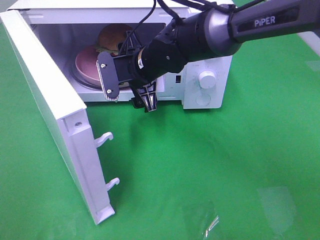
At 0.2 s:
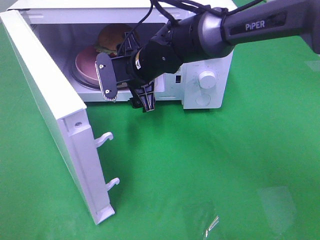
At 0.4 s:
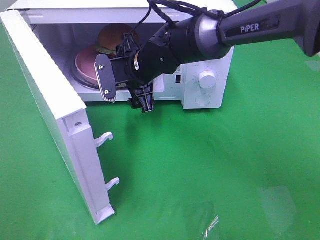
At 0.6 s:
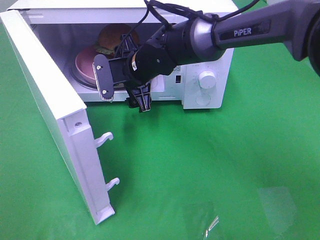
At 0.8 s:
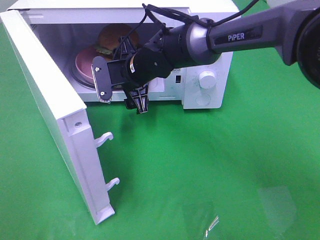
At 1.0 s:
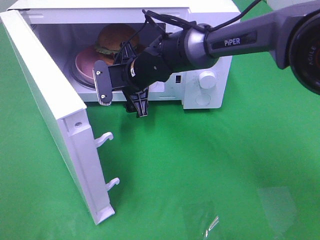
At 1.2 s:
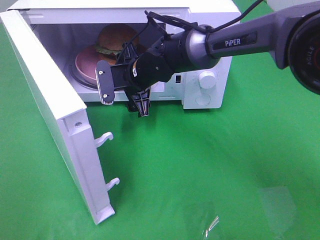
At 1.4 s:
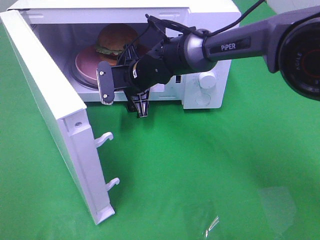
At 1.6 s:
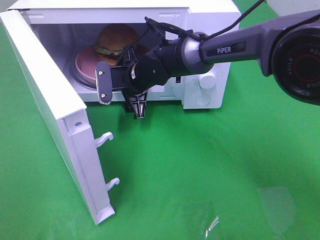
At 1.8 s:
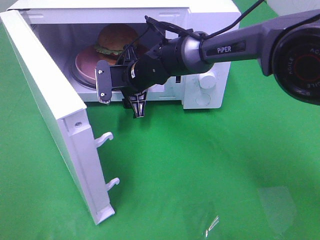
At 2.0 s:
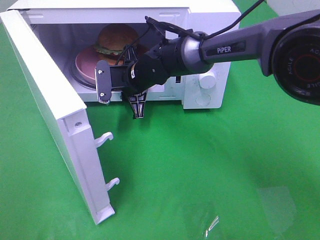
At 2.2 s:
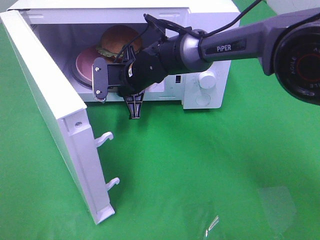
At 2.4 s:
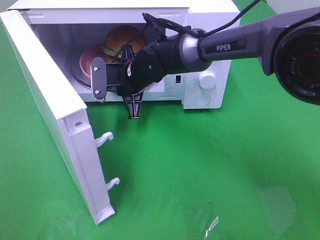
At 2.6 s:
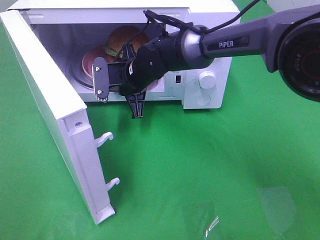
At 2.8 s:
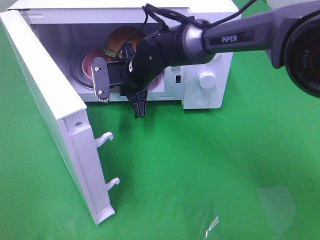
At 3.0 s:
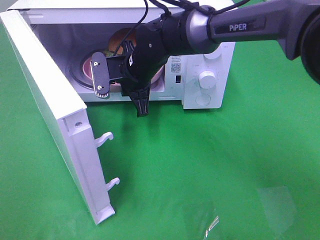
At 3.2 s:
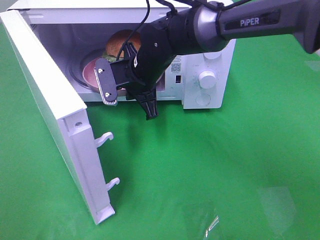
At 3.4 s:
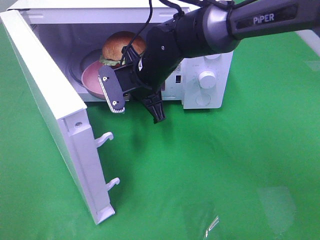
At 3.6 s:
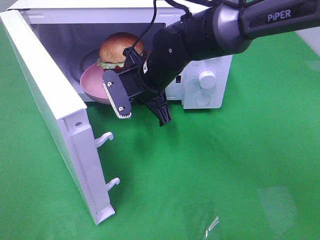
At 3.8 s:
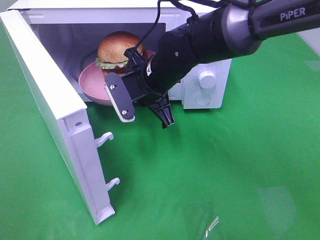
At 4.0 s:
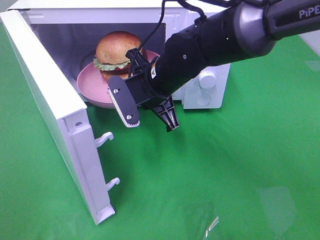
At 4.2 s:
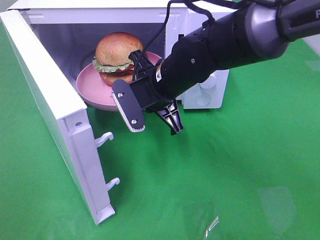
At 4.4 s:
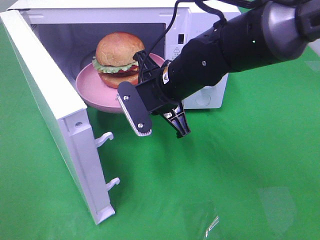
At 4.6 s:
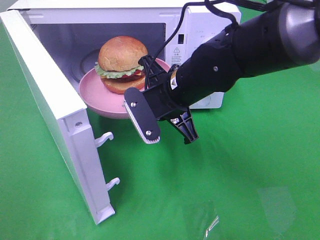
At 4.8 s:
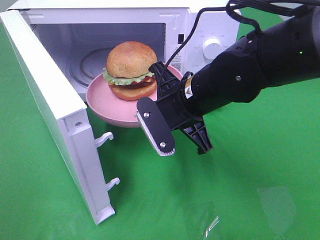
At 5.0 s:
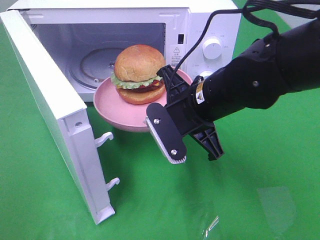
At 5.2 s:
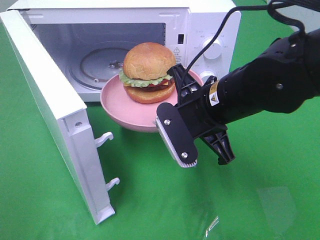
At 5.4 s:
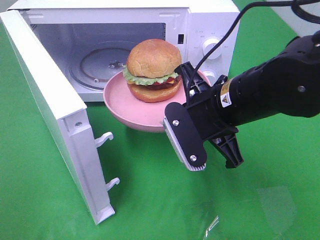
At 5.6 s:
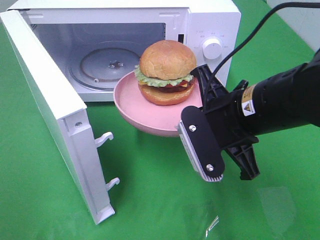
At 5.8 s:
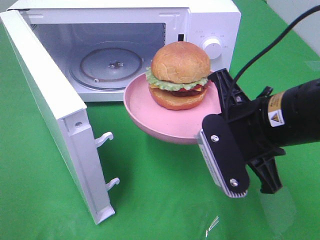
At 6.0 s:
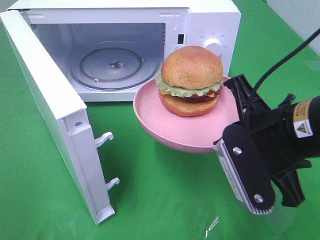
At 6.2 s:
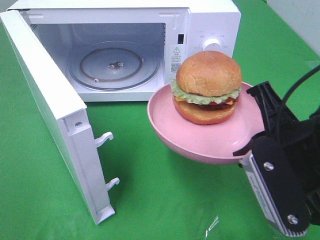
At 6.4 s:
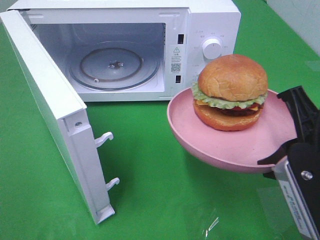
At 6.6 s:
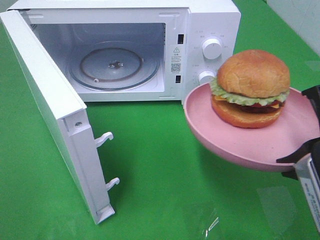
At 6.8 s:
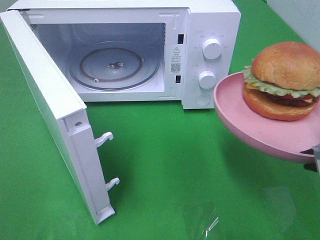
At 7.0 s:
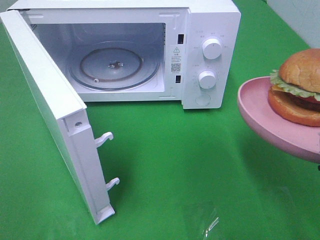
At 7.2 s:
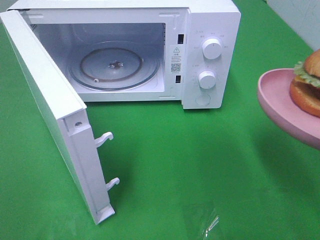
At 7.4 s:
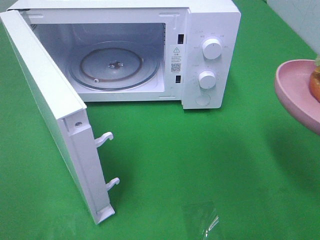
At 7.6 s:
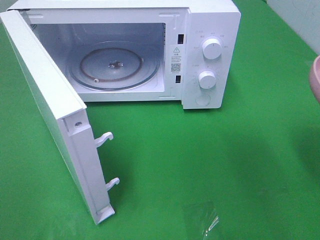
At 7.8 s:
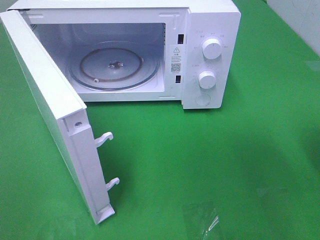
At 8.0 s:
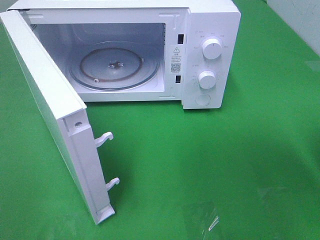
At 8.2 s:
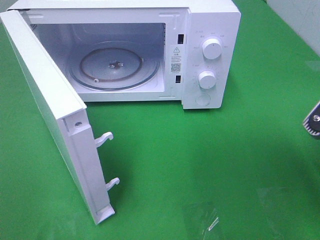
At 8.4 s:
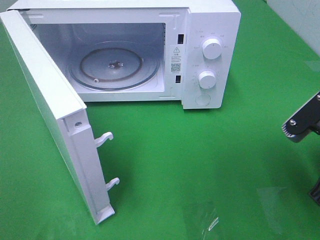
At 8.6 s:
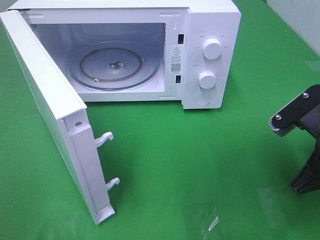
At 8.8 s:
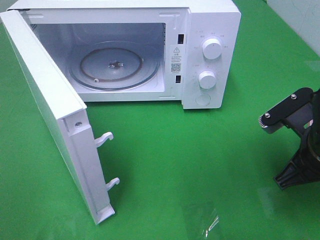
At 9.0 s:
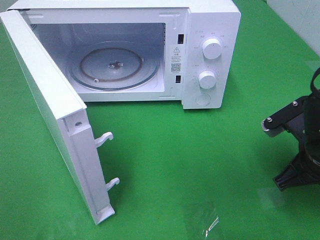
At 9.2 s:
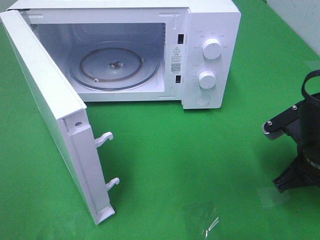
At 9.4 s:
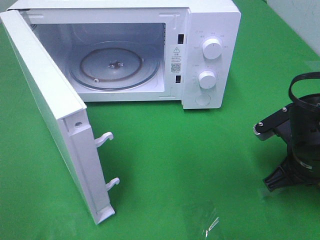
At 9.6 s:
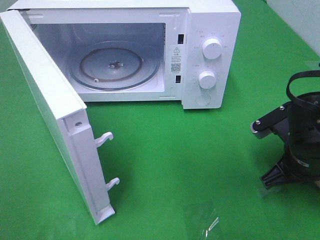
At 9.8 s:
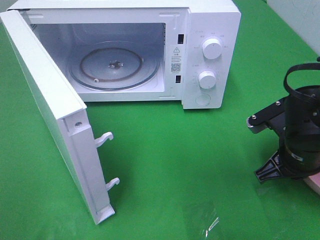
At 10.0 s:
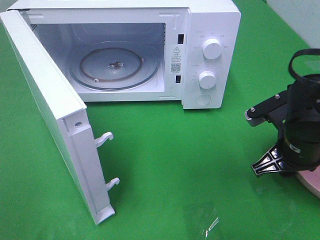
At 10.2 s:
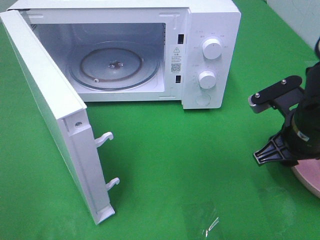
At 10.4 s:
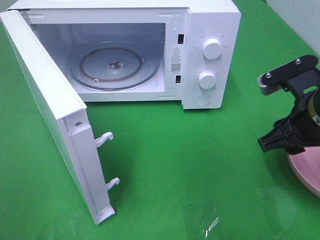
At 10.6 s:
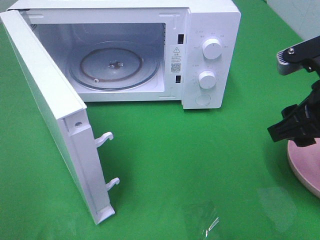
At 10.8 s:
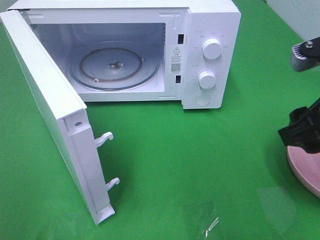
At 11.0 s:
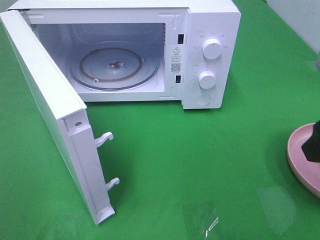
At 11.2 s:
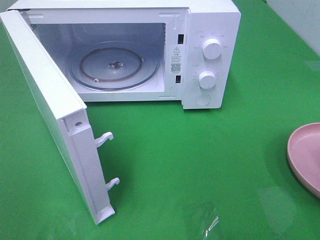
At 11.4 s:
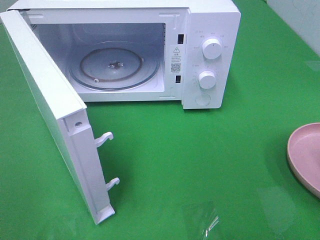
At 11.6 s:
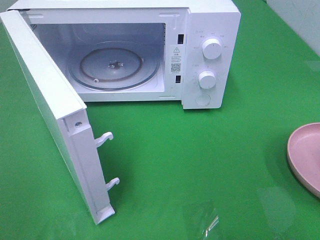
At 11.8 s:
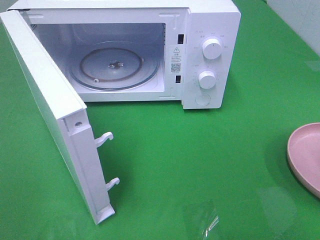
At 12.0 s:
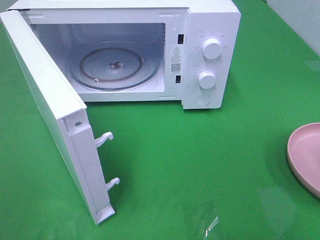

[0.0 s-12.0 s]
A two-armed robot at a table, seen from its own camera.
Task of the whole recording: Heat the burger.
Step, 0.0 to 2.2 s: Right hand: grab the plate with the hamburger.
Step, 2.4 to 9.8 s: Right hand: place the plate on the table.
0.0 to 1.6 s: The right gripper moves approximately 5 cm.
1.6 to 3.0 s: The right gripper closes.
3.0 to 4.4 s: The right gripper travels backward and to the right by roughly 10 cm.
4.4 to 6.0 s: The right gripper shifts approximately 20 cm backward and to the right.
6.0 to 7.6 s: The right gripper is displaced to the right by about 10 cm.
7.6 to 9.0 s: The right gripper goes approximately 15 cm downward and forward.
9.0 to 10.4 s: The right gripper travels upward by roughly 5 cm, and opens up.
10.4 to 12.0 s: The right gripper is displaced backward, upward and to the right by roughly 25 cm.

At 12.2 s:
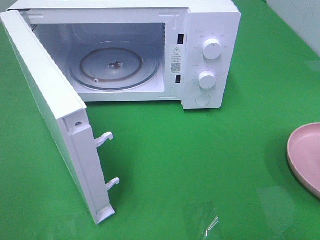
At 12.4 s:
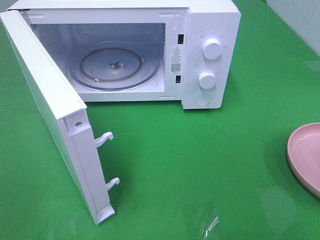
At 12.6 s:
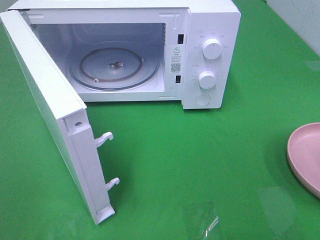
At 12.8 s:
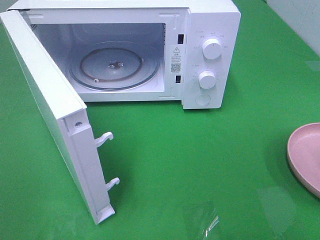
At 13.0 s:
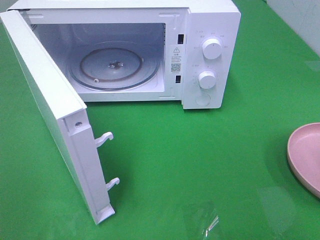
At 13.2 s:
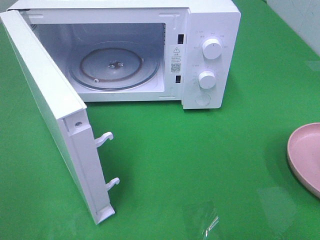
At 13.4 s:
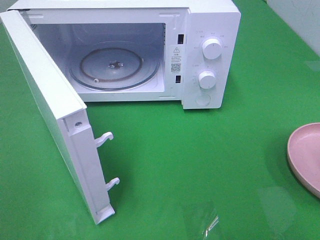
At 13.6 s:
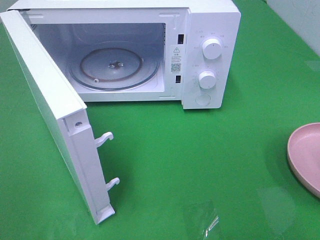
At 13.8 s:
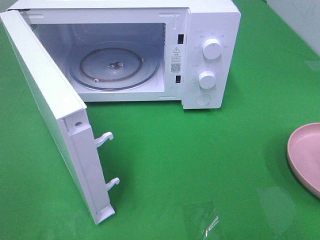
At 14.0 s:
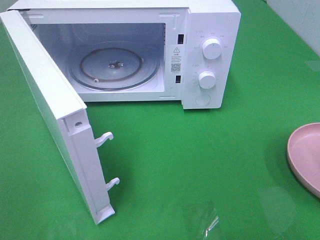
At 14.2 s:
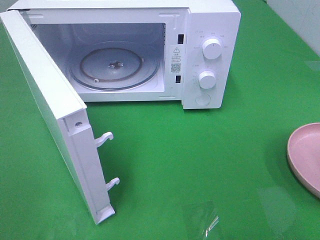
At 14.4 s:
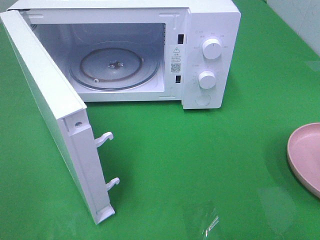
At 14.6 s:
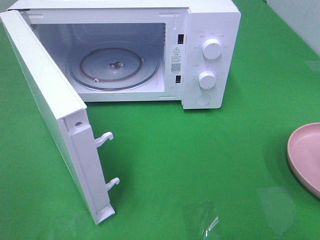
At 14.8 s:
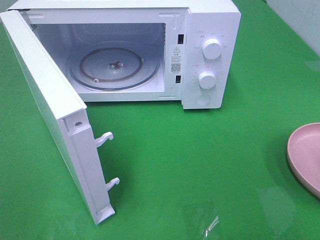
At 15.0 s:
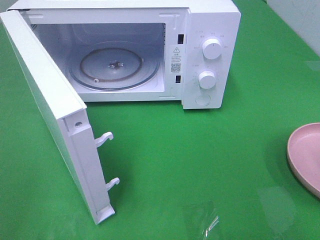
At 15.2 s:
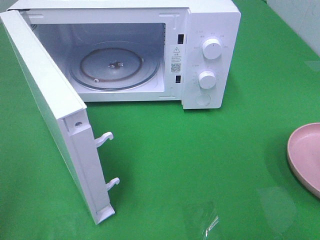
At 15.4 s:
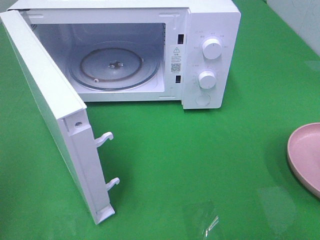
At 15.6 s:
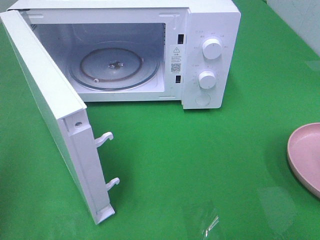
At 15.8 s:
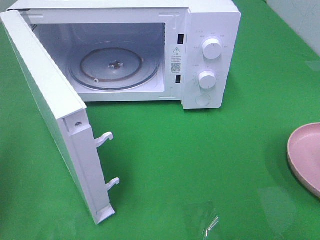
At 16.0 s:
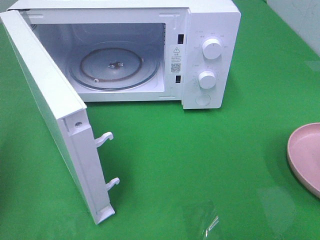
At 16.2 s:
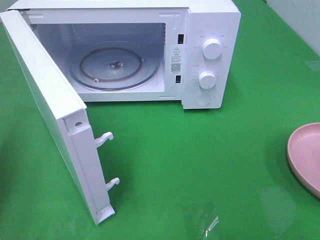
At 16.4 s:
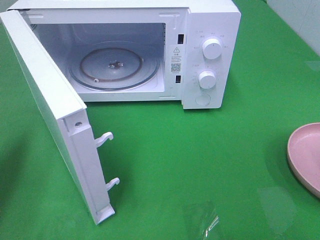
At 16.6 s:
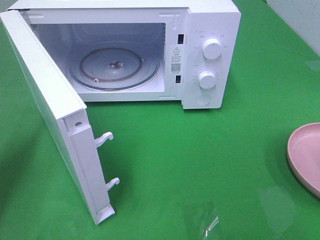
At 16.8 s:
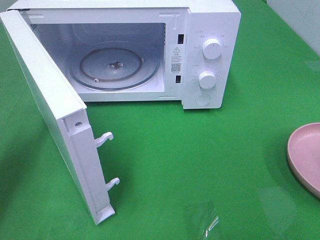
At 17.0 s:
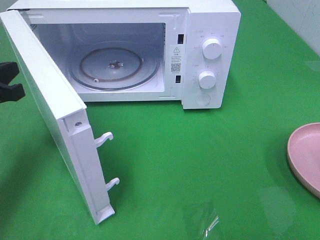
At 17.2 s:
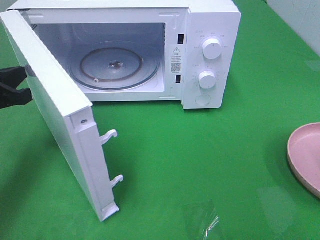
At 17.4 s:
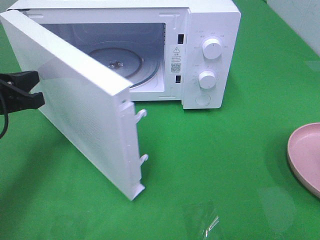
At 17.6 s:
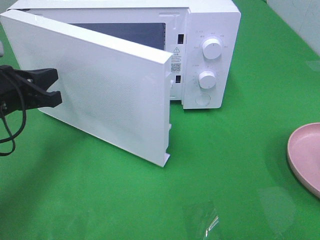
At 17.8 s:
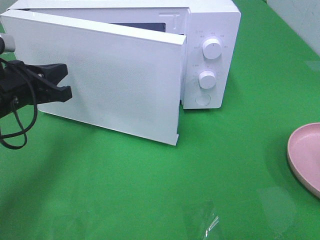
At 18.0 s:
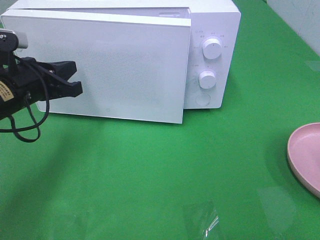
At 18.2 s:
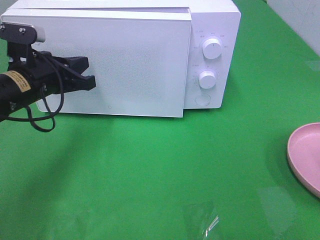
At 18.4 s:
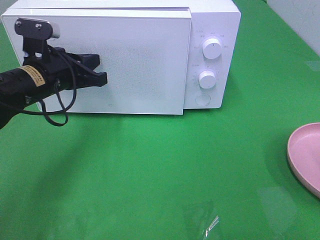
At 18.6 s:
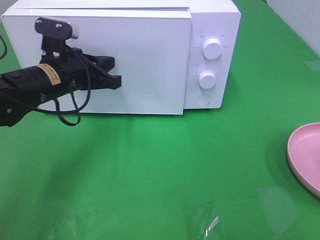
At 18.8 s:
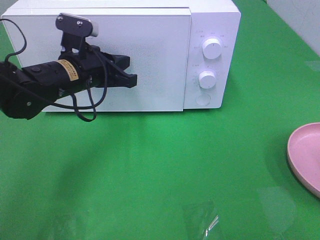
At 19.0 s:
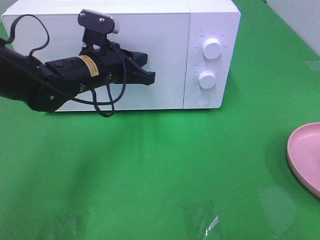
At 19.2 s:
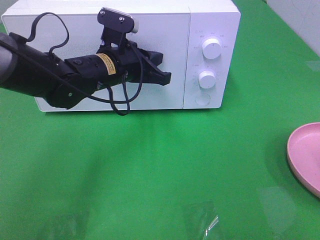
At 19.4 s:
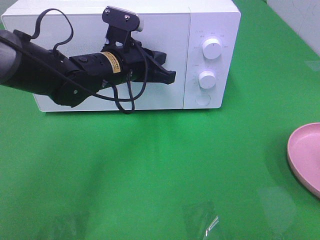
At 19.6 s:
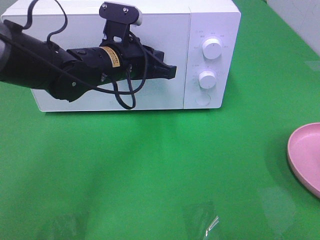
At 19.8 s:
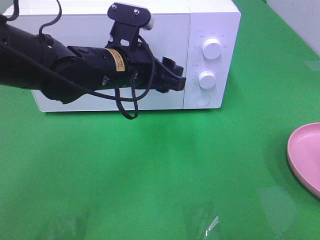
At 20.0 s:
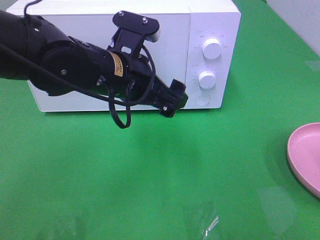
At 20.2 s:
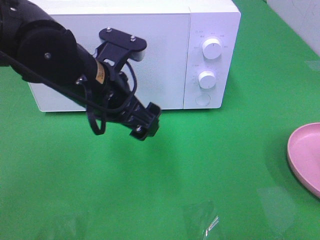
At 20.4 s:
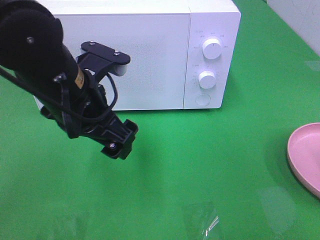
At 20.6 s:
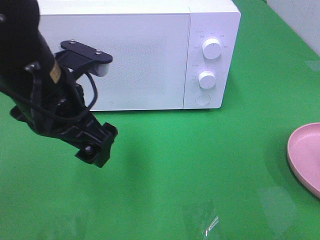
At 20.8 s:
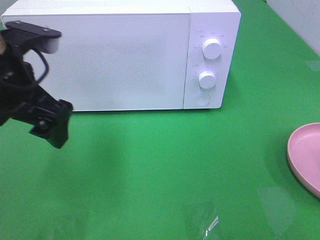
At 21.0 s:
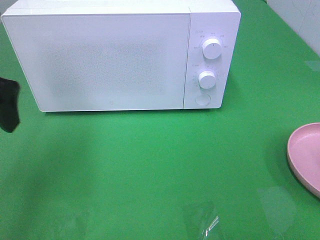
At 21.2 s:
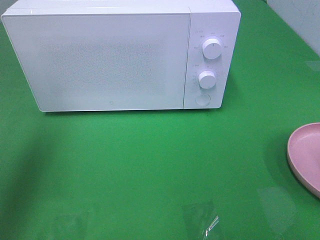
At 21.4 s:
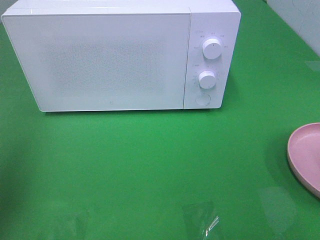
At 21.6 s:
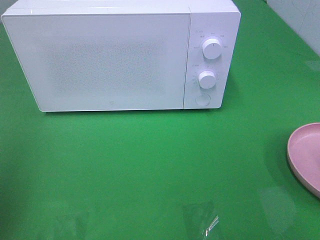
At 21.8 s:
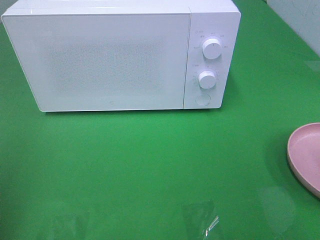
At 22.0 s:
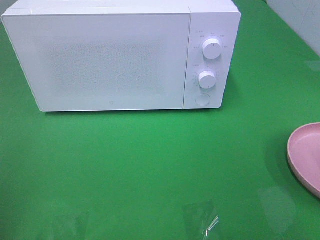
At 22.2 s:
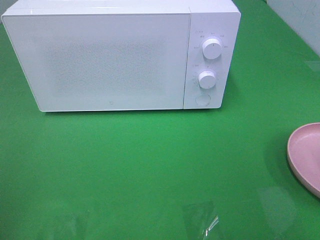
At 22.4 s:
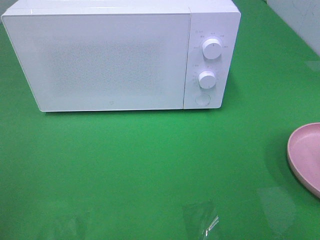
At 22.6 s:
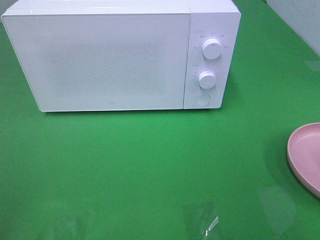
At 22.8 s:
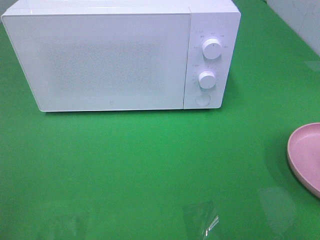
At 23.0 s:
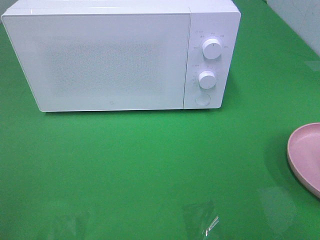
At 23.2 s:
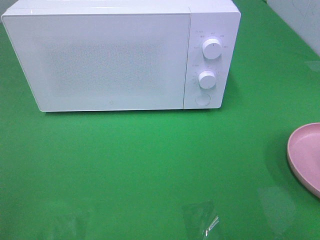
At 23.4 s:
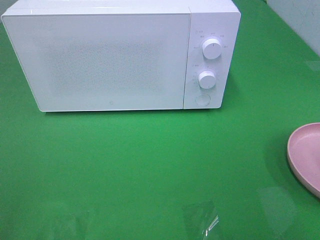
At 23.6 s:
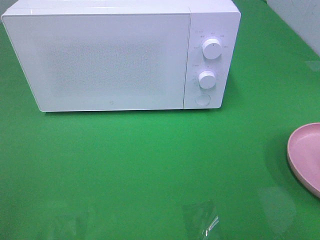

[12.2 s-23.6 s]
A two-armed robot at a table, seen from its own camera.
Task of the whole recording: Heat the burger.
Step, 12.2 to 19.6 s: Left hand: close the microwave door.
15.0 to 16.4 s: The left gripper travels forward by approximately 20 cm, and closes.
16.4 to 17.8 s: The left gripper moves to the right, forward and downward, approximately 15 cm.
17.8 to 19.4 s: The left gripper goes roughly 15 cm to the right and forward.
19.4 to 20.8 s: The left gripper shifts about 20 cm to the left, backward and upward, and opens.
20.8 to 22.2 s: The left gripper is displaced backward and to the left by roughly 25 cm.
